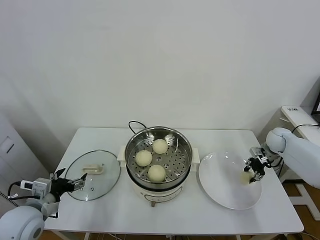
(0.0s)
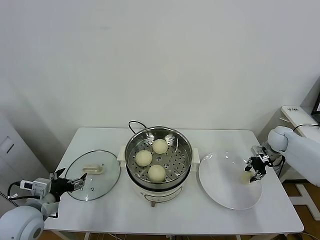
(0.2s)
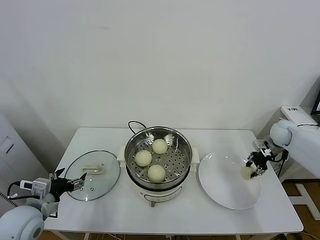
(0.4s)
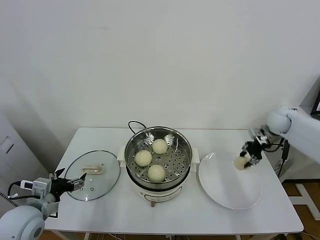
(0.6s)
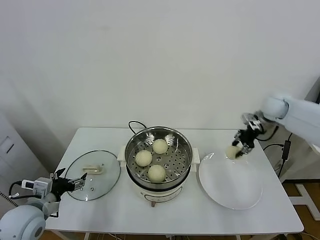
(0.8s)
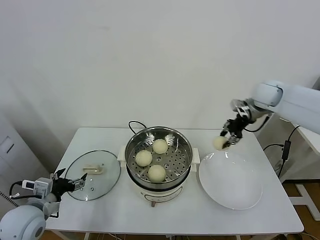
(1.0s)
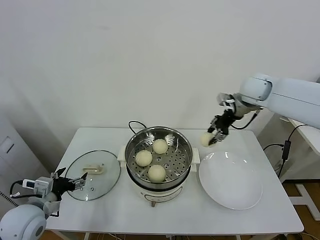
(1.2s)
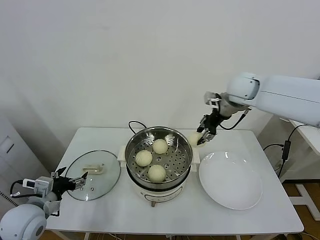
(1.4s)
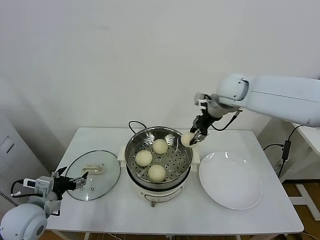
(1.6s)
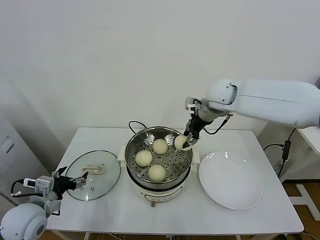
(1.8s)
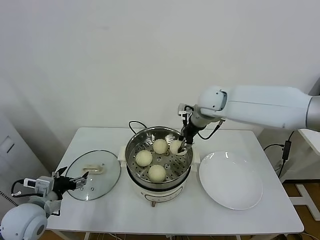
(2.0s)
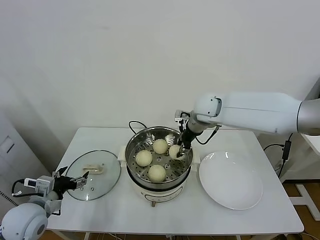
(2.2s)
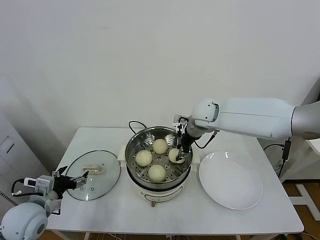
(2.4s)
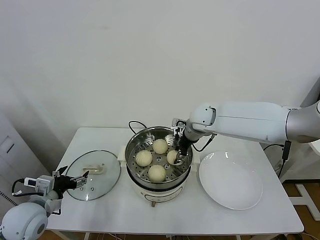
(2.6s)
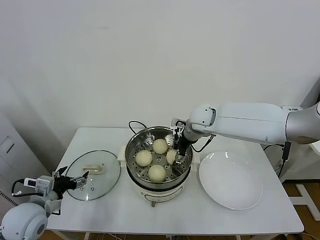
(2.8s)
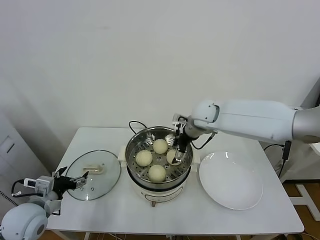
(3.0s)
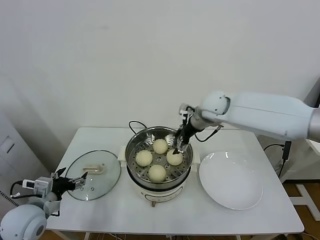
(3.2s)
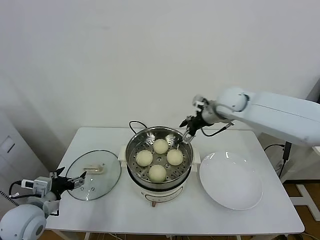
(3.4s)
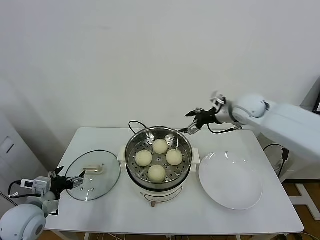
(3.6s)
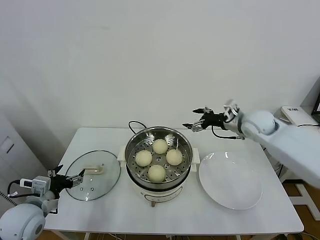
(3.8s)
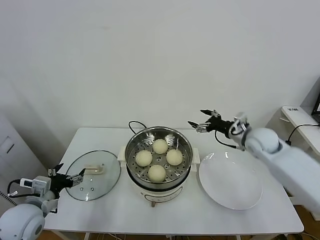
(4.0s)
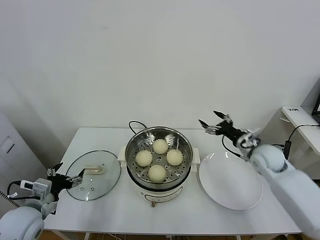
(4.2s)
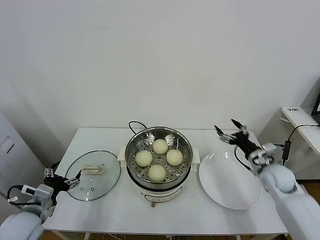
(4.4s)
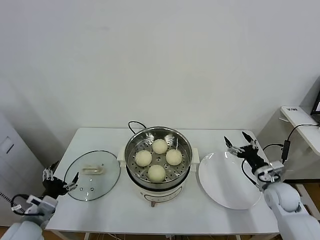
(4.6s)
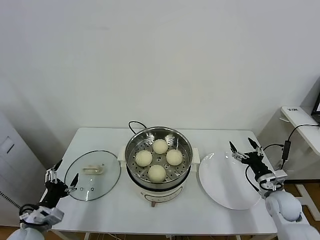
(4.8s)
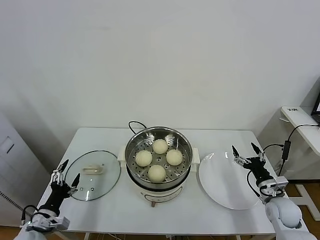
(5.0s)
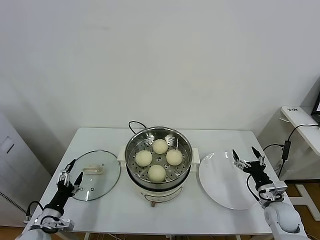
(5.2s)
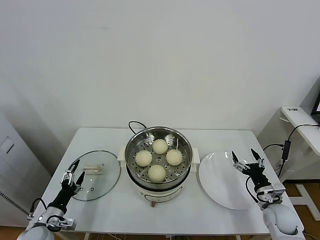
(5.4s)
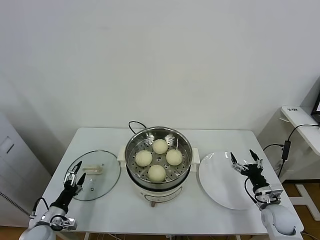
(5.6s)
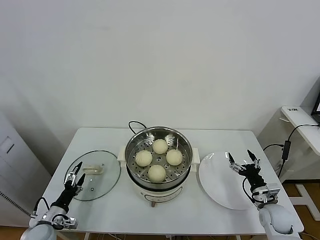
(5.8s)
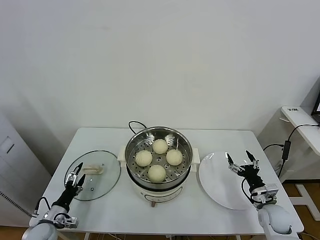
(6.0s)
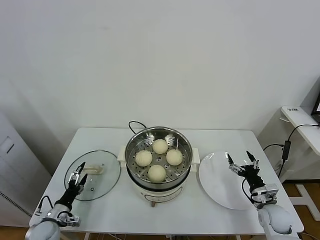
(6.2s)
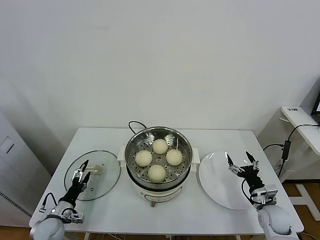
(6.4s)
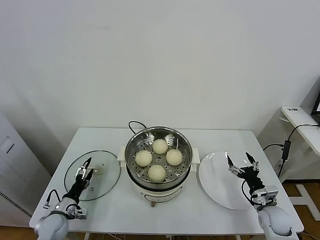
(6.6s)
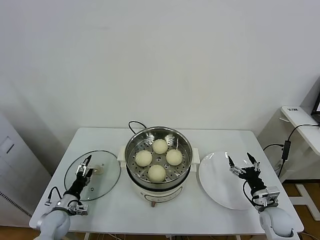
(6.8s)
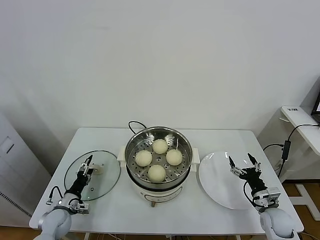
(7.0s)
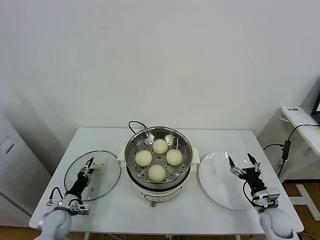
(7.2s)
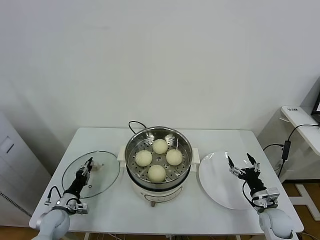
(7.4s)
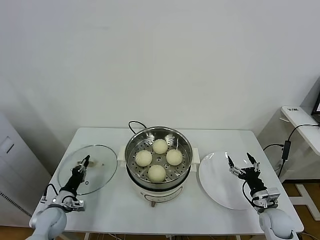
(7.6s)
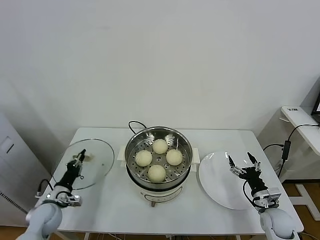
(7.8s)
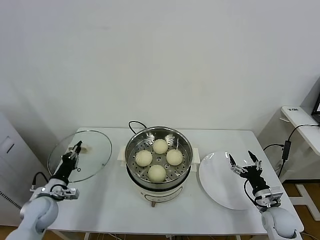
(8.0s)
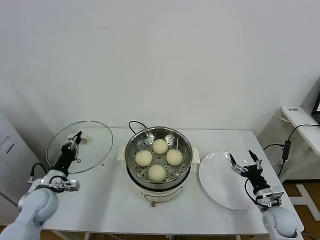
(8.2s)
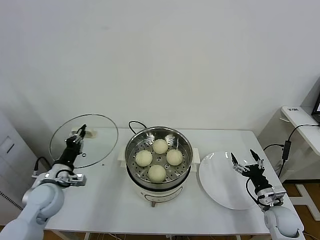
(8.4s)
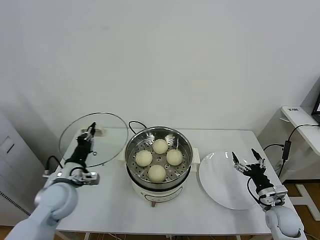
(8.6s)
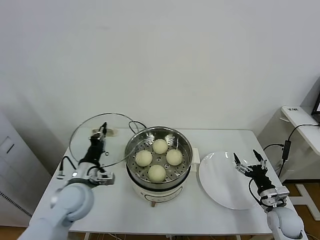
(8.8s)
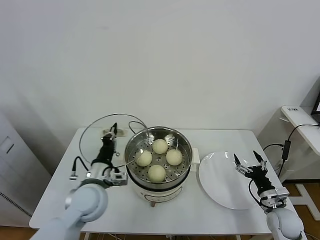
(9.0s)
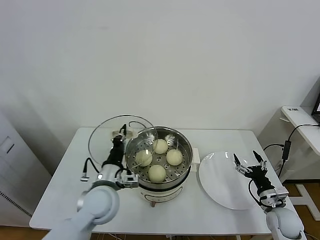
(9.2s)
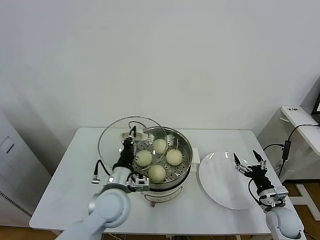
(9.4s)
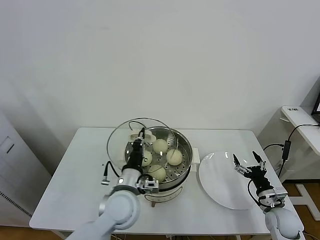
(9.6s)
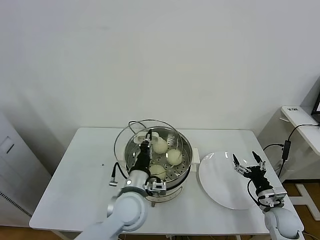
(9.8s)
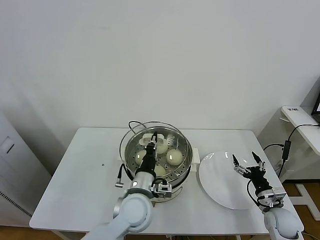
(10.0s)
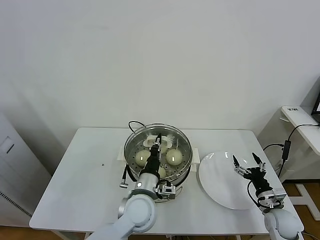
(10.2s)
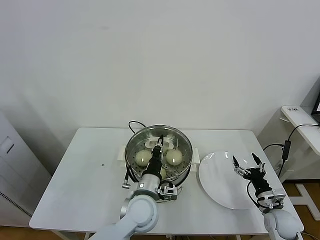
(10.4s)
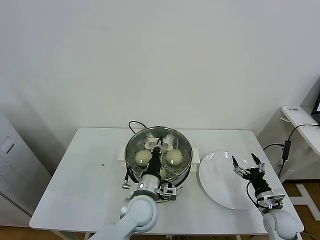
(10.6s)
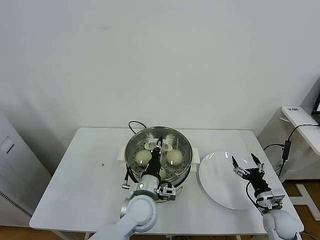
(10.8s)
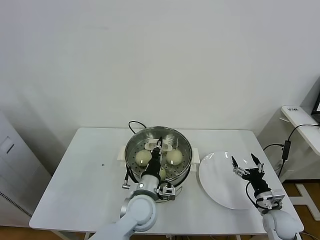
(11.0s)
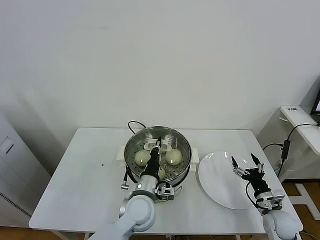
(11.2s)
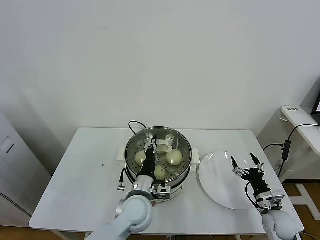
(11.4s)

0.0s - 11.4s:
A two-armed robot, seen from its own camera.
Task of the whole recording: take steamed baozi put them in steamer.
Step, 0.0s - 3.0s: Place the baozi on the steamer with right gripper.
Step, 3.2s - 7.6s: Grasp the pot lid with left gripper.
0.0s - 1.4s: The right gripper heads upward and to the left, covering roughly 35 cm.
1.4s - 2.8s: The right gripper goes some 15 cm downward and to the left, and opens up.
2.8s - 4.2s: The right gripper shifts some 25 cm to the right, backward and downward, and opens.
4.2s - 5.6s: The right gripper travels downward and backward by about 20 cm, while the left gripper goes roughly 15 cm downward.
5.6s - 7.2s: The left gripper is displaced forward by some 5 cm, and closes its fingers.
7.2s - 8.6s: The left gripper moves upward and to the right, some 20 cm, and closes its fingers.
8.6s - 10.0s: The left gripper goes approximately 25 cm to the right.
10.0s - 11.4s: The grippers make only small movements.

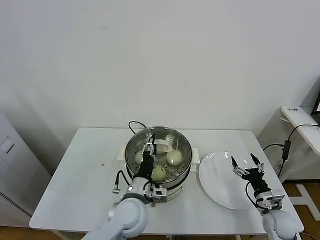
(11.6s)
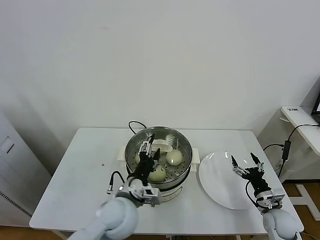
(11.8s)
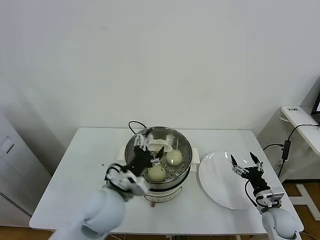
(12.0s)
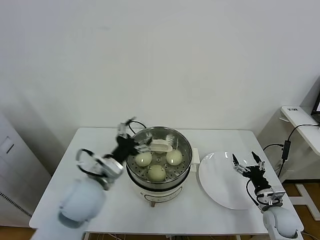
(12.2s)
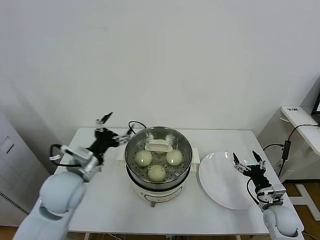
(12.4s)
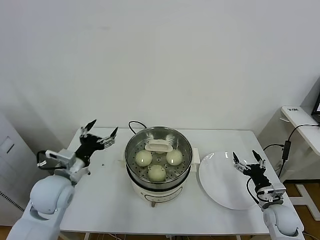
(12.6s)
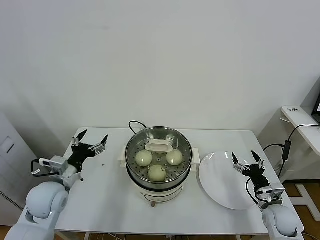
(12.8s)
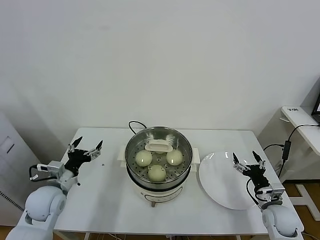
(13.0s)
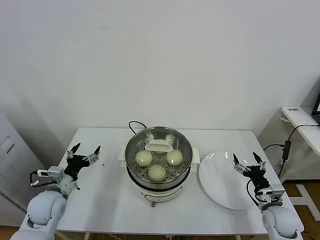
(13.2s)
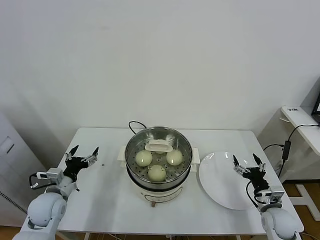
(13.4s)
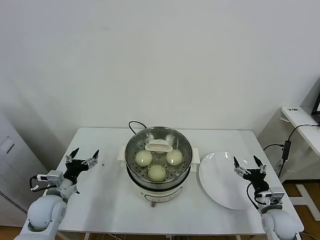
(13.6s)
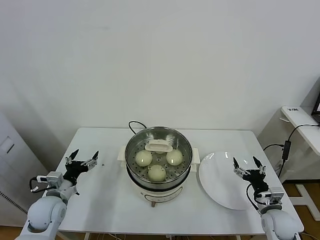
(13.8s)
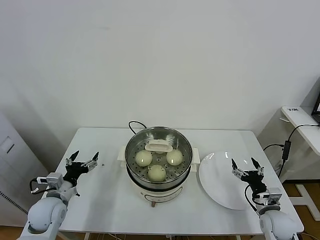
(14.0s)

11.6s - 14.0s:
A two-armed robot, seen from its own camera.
Task of the whole recording: take steamed baozi put them in steamer.
11.6s - 12.8s: The left gripper goes some 25 cm to the left, and opens.
12.8s - 14.0s: The left gripper shifts roughly 10 cm downward.

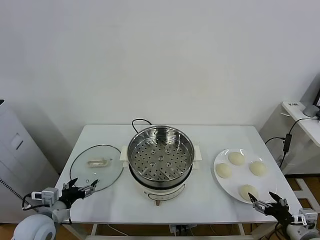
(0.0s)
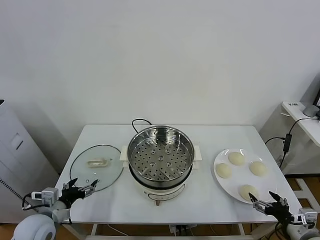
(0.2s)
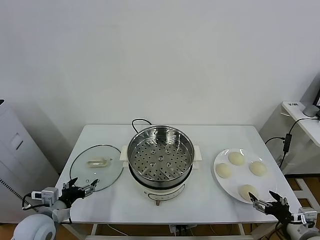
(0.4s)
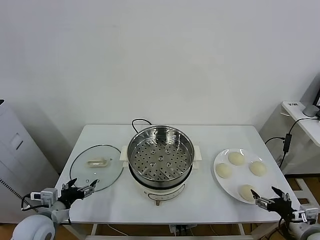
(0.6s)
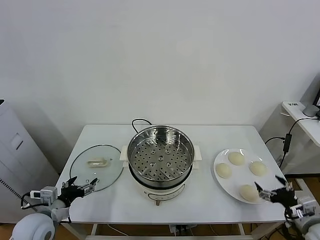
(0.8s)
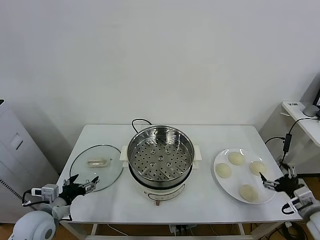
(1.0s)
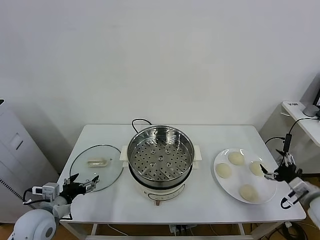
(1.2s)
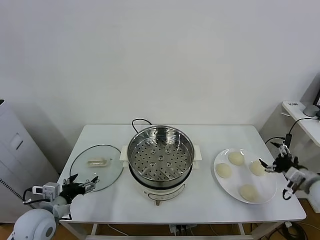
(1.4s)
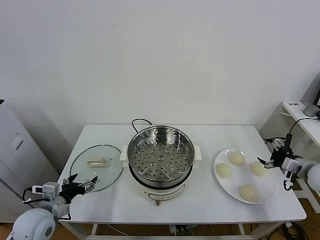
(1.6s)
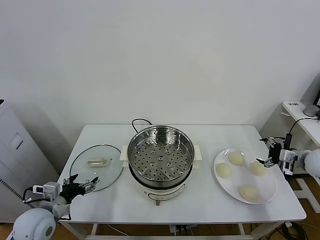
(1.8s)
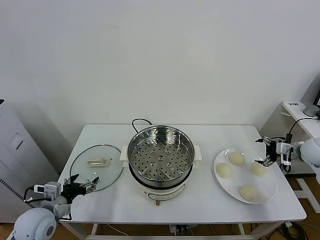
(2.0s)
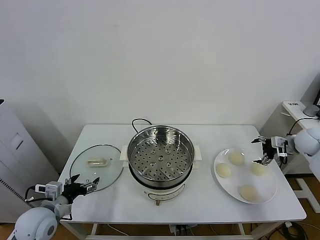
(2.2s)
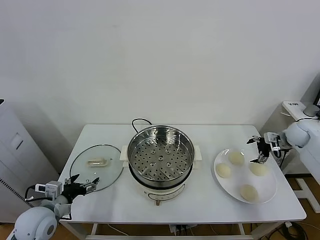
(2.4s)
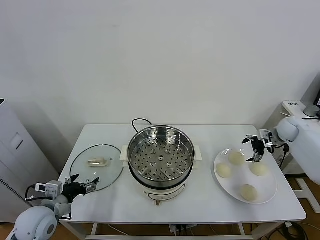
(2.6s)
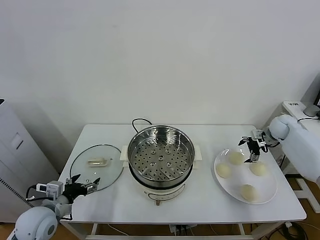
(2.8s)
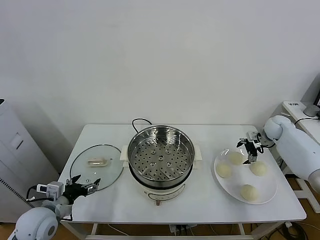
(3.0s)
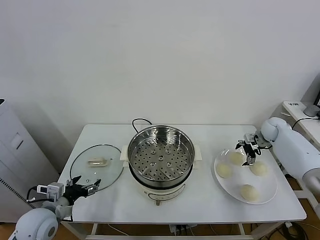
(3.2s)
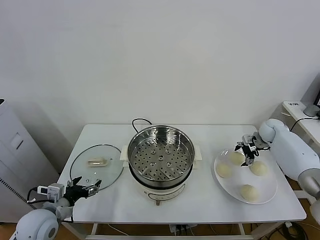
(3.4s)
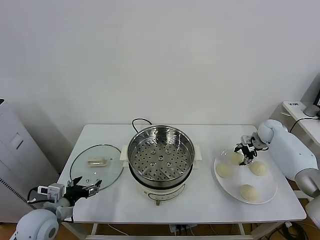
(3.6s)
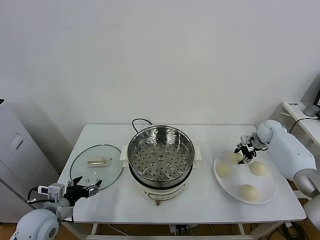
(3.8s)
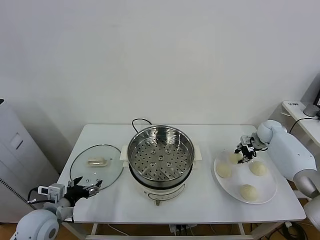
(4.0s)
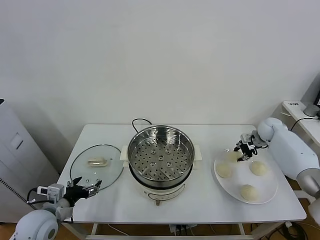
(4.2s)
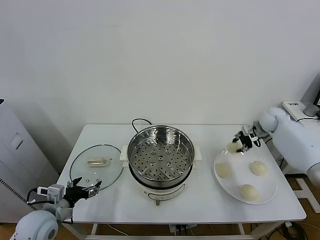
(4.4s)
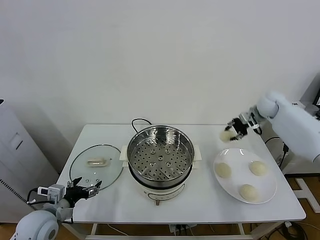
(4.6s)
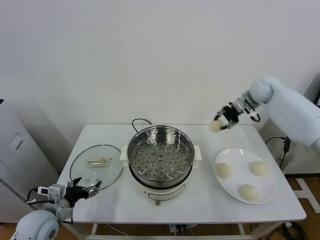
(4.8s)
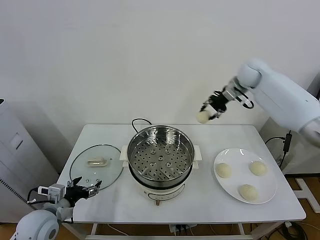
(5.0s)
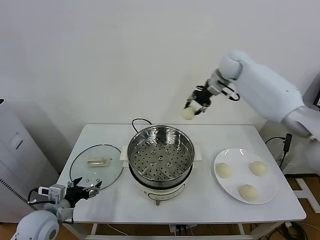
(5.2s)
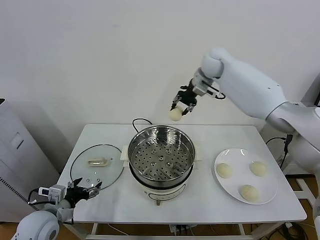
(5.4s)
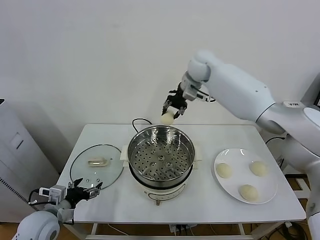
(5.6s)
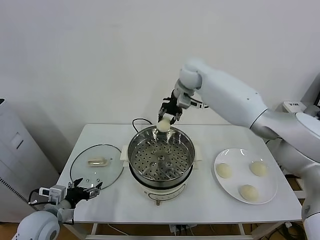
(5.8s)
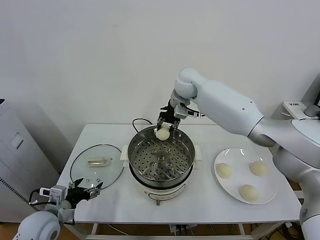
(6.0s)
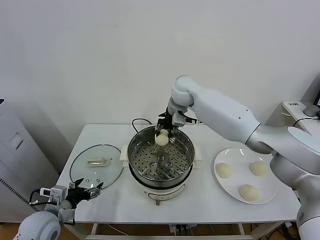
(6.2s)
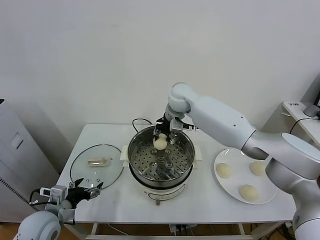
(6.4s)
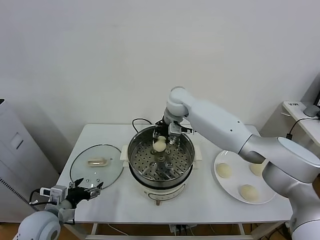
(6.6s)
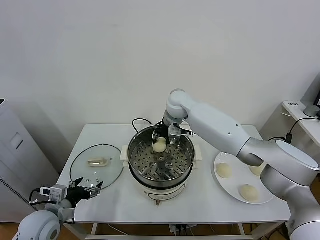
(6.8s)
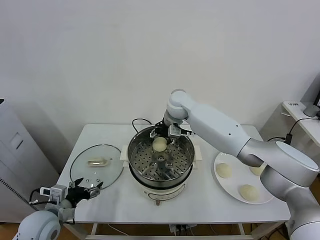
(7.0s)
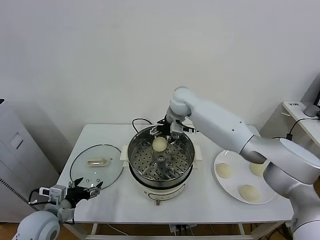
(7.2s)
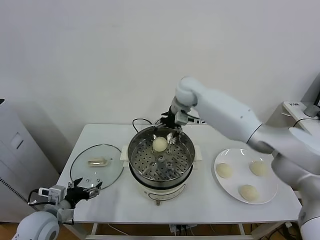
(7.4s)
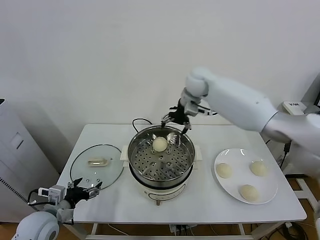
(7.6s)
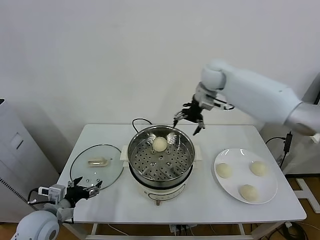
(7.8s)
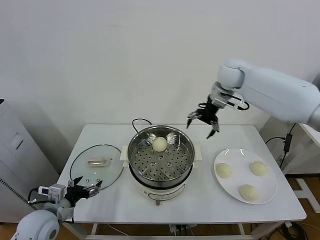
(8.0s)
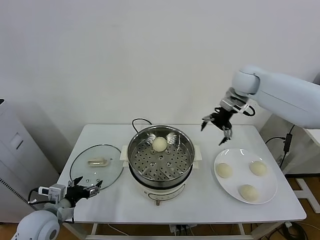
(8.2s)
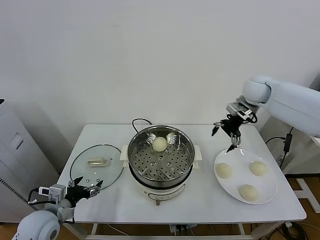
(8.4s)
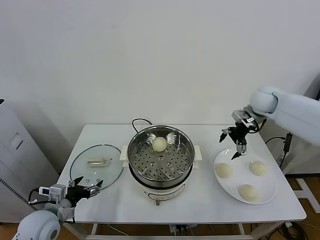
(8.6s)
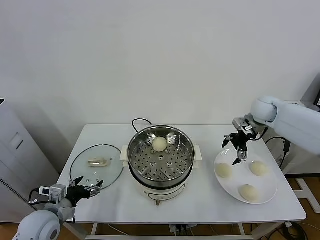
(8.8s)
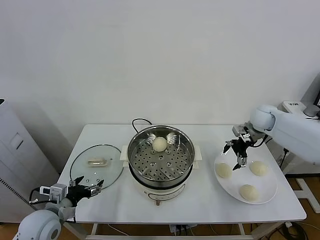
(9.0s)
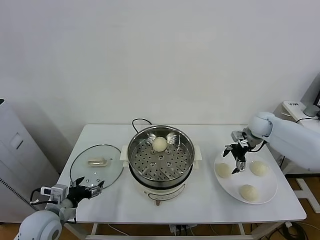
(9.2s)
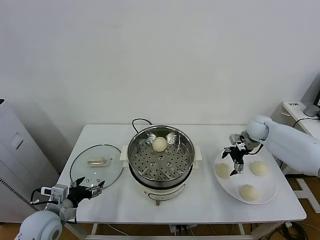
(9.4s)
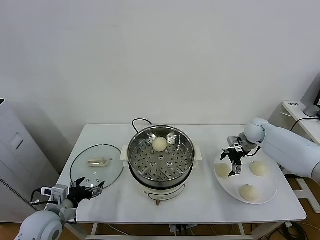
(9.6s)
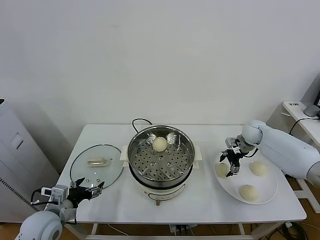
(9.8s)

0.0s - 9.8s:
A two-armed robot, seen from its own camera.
Task of the whole recording: take steamed baozi put them in steamer.
Step, 0.0s - 3.8s: Grasp the baozi in the plate with right gripper.
Step, 4.0s - 7.4s: Place the baozi on the steamer with right gripper.
1.4s - 2.8s: The right gripper travels forward by approximately 25 cm.
2.8s - 4.2s: The right gripper closes up.
4.2s - 5.6s: The right gripper is displaced to the left and upward by roughly 40 cm.
5.6s - 7.0s: The right gripper moves downward, some 10 cm, and opens up.
7.0s - 8.4s: The right gripper goes about 25 cm to the right.
8.4s - 9.8s: The right gripper heads downward, covering roughly 20 cm.
